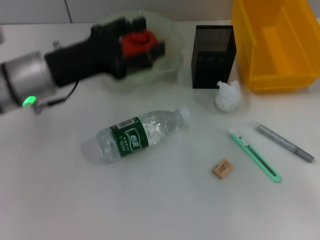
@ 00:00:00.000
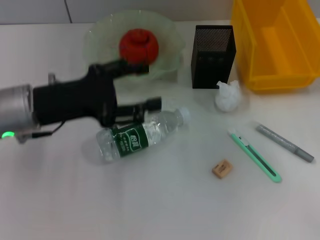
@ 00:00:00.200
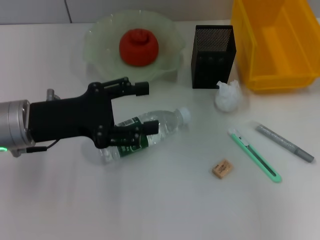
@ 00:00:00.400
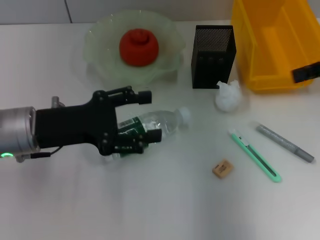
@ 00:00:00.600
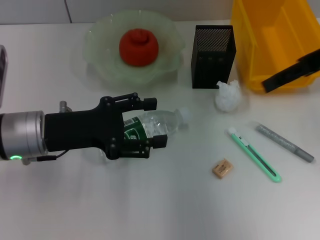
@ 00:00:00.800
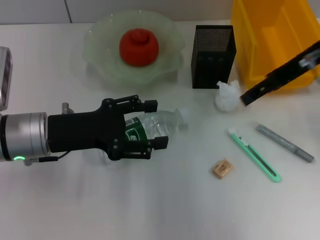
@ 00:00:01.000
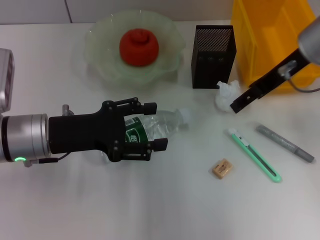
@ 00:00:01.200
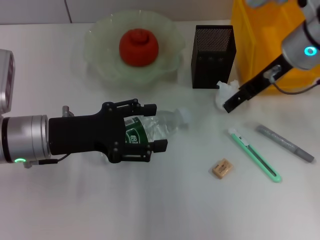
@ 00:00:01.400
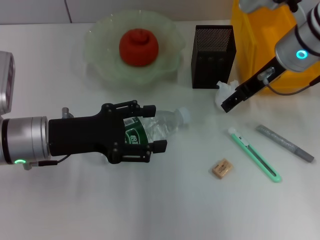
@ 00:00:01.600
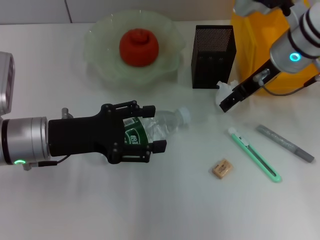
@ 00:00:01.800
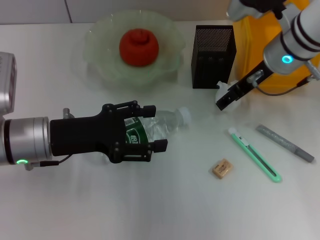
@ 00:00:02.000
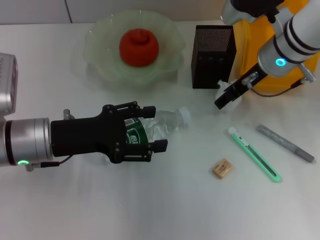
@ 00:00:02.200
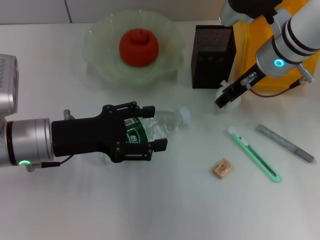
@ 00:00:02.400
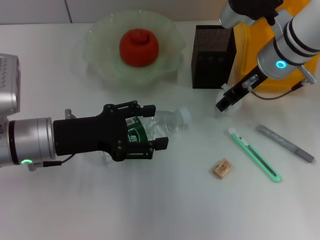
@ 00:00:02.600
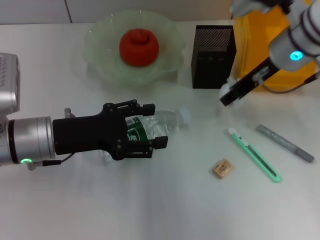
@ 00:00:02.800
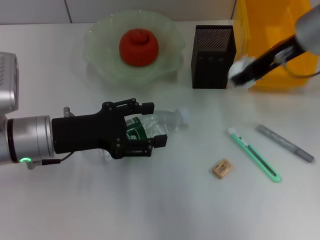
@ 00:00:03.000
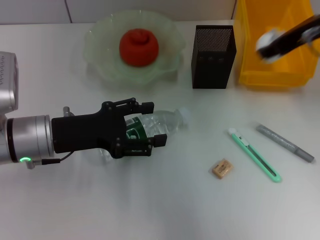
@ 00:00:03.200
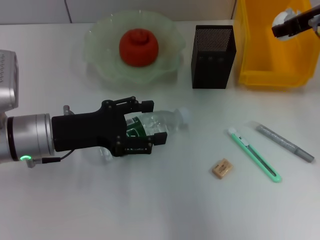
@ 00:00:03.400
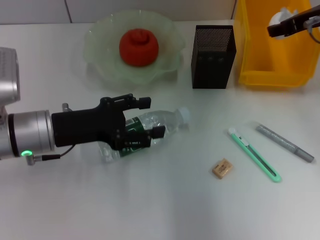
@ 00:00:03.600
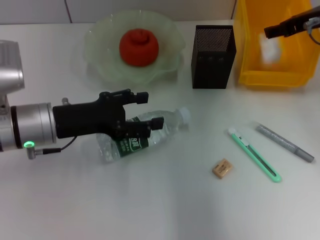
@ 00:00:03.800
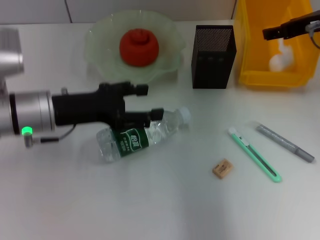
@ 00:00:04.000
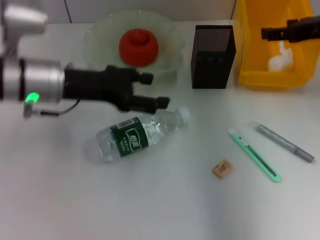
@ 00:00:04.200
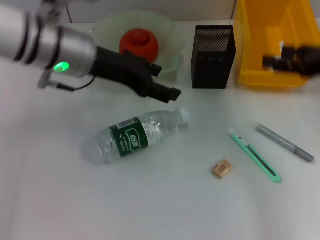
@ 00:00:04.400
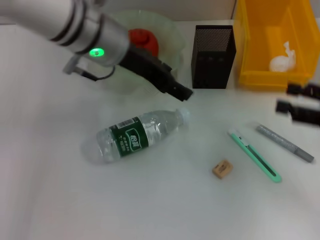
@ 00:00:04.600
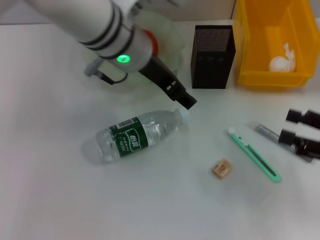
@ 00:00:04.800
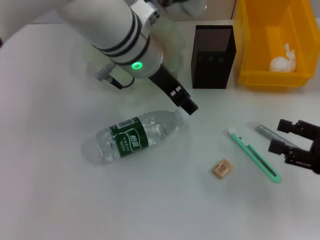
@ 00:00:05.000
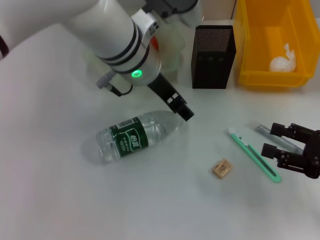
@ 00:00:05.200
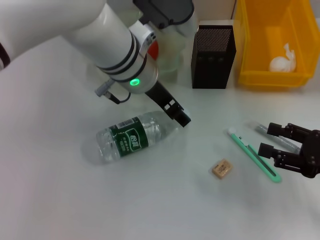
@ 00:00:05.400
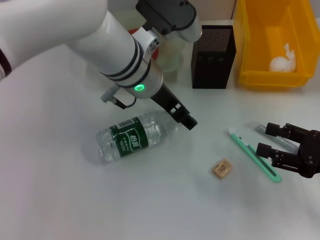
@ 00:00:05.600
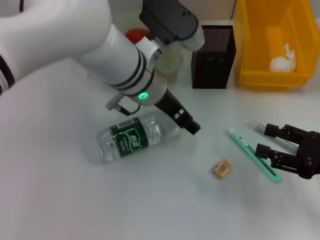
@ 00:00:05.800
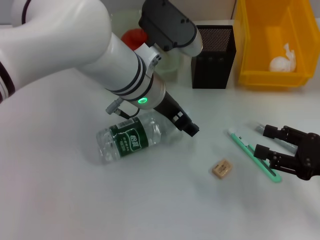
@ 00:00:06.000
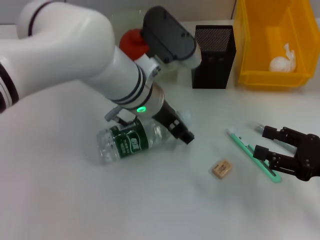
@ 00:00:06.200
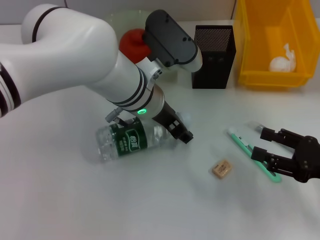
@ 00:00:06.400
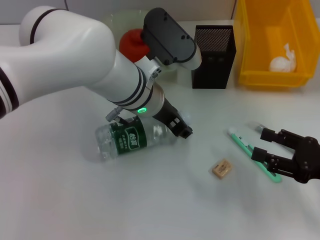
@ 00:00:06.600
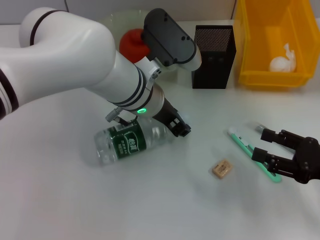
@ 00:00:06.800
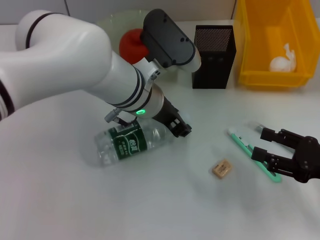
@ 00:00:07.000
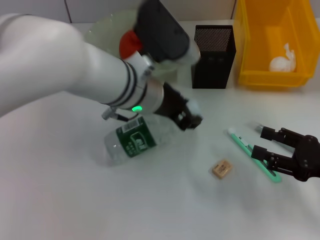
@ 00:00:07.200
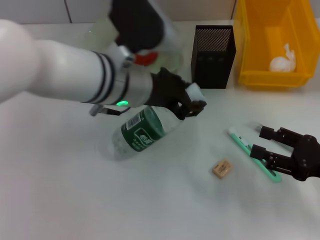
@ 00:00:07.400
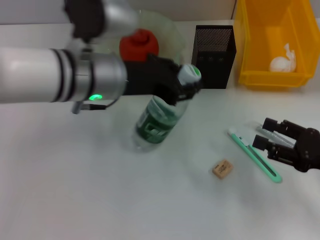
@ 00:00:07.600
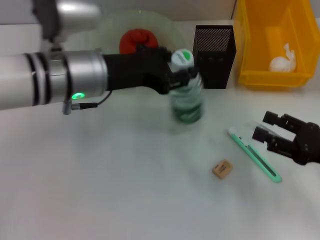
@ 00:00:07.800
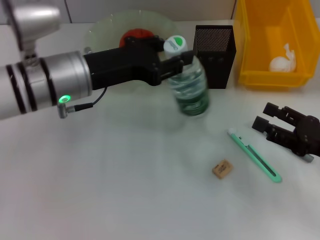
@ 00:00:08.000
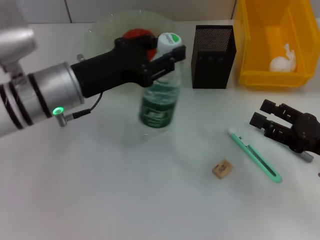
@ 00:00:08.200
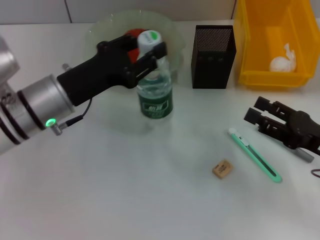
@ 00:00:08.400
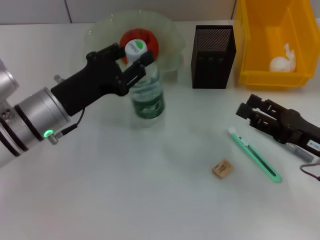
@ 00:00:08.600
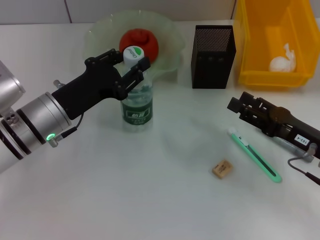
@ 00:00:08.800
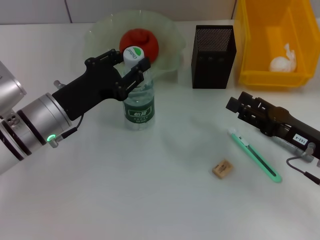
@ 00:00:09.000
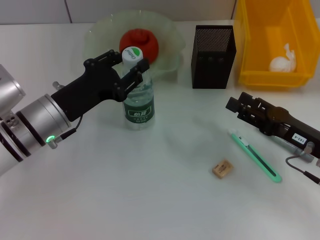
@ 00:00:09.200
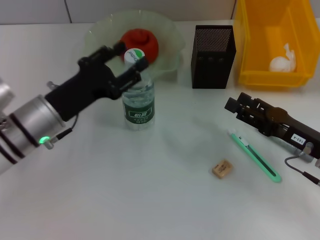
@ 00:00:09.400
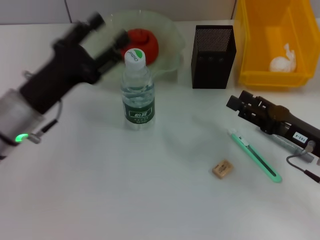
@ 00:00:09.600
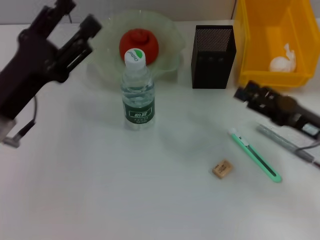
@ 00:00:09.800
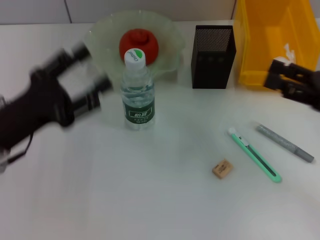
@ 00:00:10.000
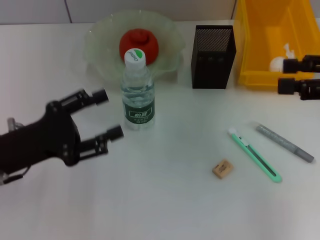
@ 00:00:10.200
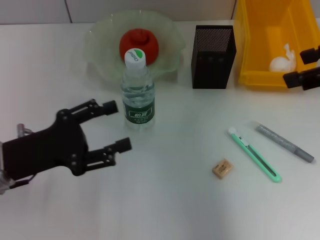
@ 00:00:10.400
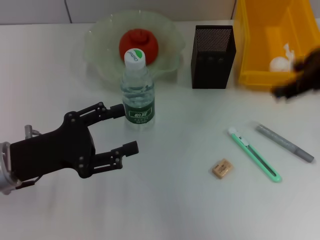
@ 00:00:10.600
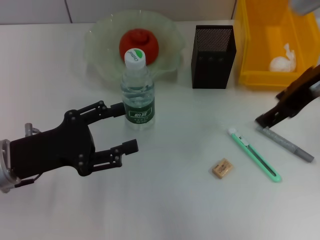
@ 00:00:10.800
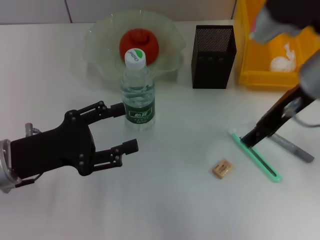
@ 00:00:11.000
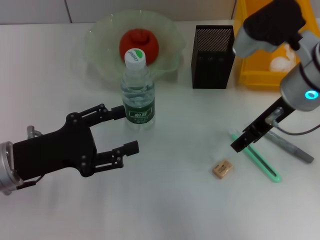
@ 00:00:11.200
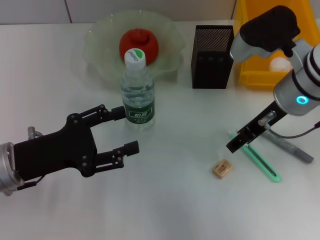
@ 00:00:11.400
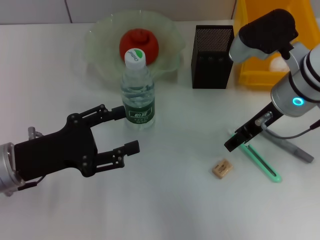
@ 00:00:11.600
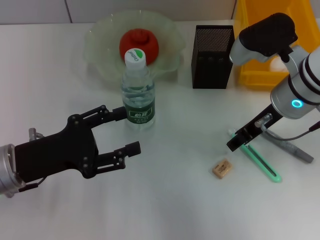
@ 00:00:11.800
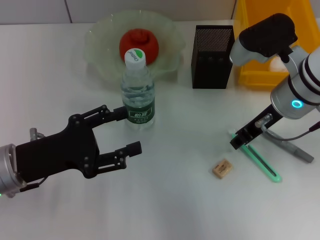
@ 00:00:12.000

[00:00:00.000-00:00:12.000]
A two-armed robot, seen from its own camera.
Step, 00:00:00.000 to 00:00:02.200: Grab the paper ball with the right hand.
Step, 00:00:02.400 to 00:00:04.200: Place the paper ball into the trash can with the right hand.
Step, 00:00:04.400 to 00:00:06.600: Grab the water bottle with the left hand.
Step, 00:00:06.800 to 00:00:09.200: Place the water bottle on the table with the left hand.
00:00:00.000 to 00:00:01.600: The right gripper heads to the left and forward, covering approximately 25 cm. Meanwhile the left gripper heads backward, covering approximately 5 cm.
00:00:01.600 to 00:00:03.000: The right gripper moves about 5 cm, and closes.
00:00:03.000 to 00:00:04.400: The right gripper heads to the right and backward, covering approximately 15 cm, and opens. The left gripper is displaced upward, forward and to the right by some 15 cm.
00:00:04.400 to 00:00:06.000: The left gripper moves to the right and downward, roughly 10 cm. Meanwhile the right gripper travels downward and backward by some 15 cm.
00:00:06.000 to 00:00:07.600: The left gripper moves to the left, some 5 cm, and closes its fingers.
00:00:07.600 to 00:00:09.000: The right gripper changes place by approximately 5 cm. The left gripper goes about 15 cm downward and to the left.
00:00:09.000 to 00:00:10.400: The left gripper shifts about 10 cm backward and to the left, and opens up, while the right gripper heads upward, covering about 25 cm.
00:00:10.400 to 00:00:12.000: The right gripper goes roughly 20 cm downward and to the left.

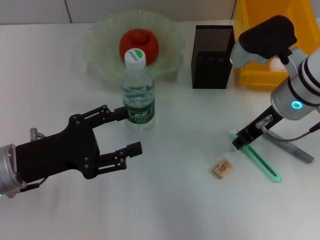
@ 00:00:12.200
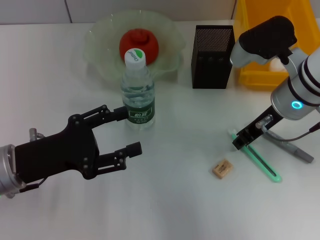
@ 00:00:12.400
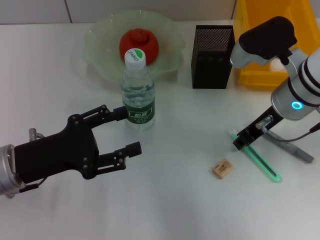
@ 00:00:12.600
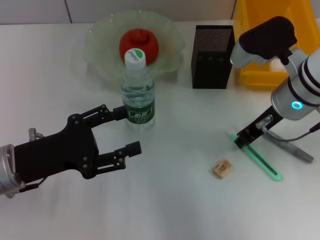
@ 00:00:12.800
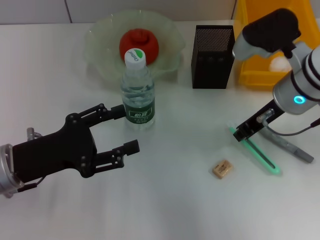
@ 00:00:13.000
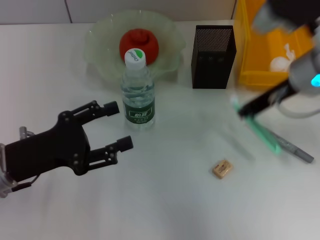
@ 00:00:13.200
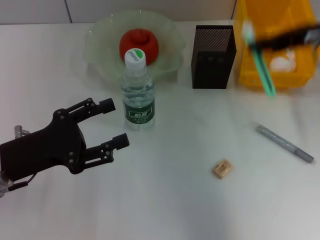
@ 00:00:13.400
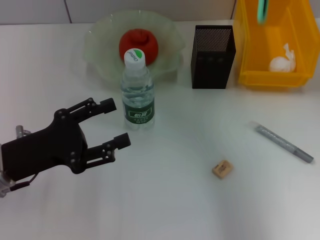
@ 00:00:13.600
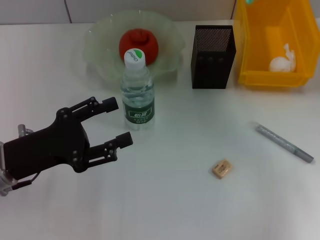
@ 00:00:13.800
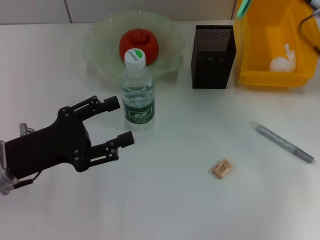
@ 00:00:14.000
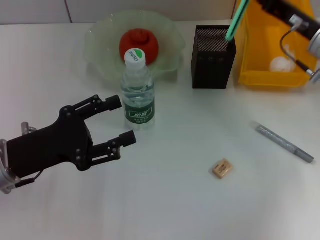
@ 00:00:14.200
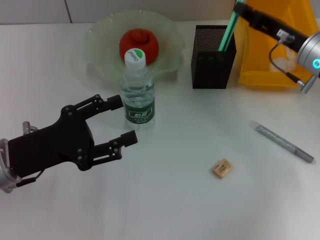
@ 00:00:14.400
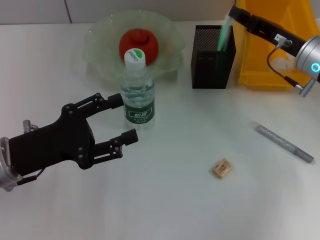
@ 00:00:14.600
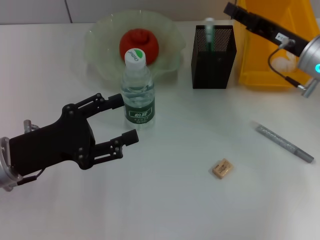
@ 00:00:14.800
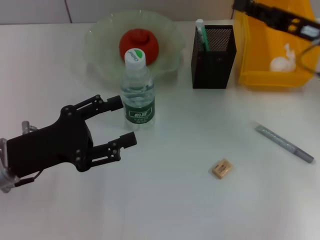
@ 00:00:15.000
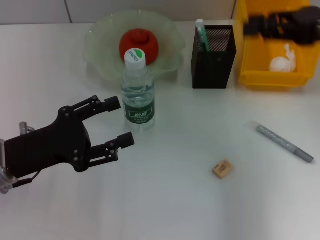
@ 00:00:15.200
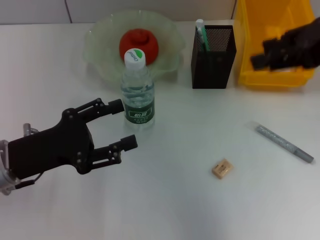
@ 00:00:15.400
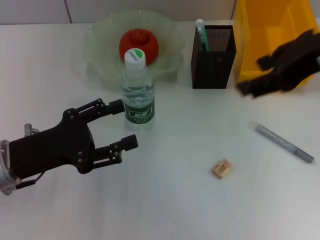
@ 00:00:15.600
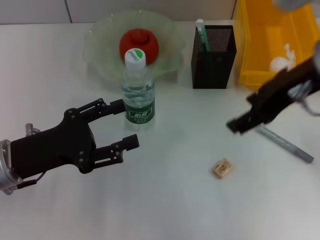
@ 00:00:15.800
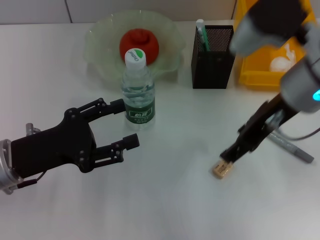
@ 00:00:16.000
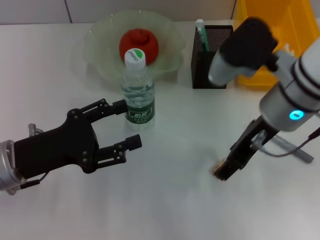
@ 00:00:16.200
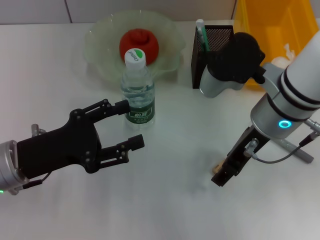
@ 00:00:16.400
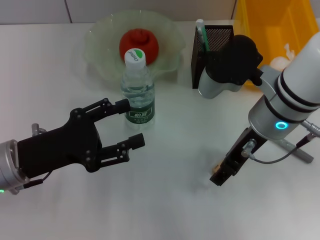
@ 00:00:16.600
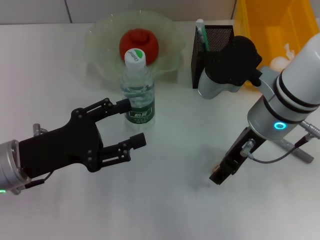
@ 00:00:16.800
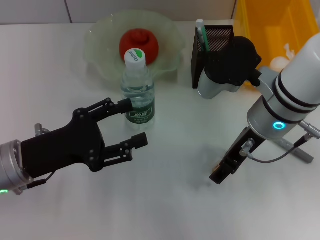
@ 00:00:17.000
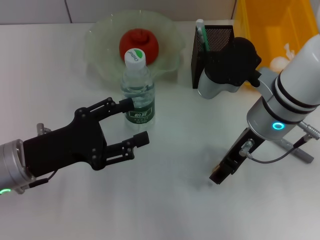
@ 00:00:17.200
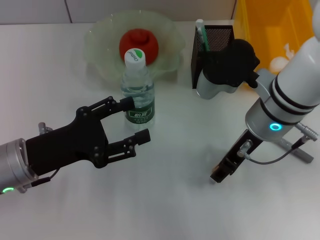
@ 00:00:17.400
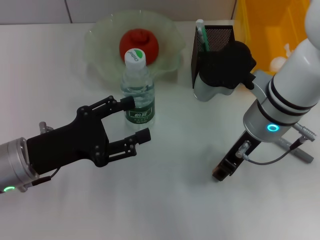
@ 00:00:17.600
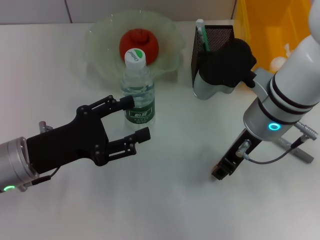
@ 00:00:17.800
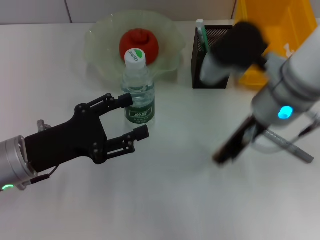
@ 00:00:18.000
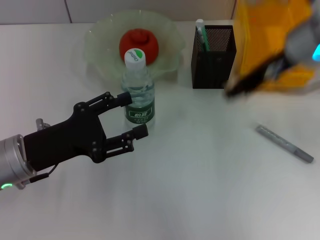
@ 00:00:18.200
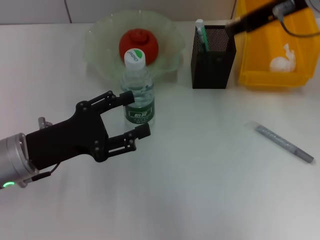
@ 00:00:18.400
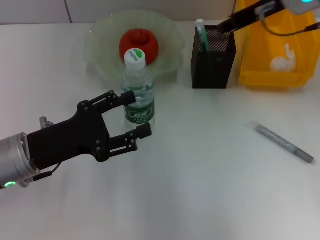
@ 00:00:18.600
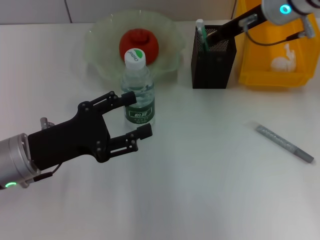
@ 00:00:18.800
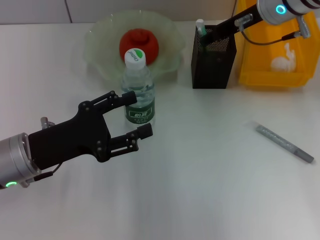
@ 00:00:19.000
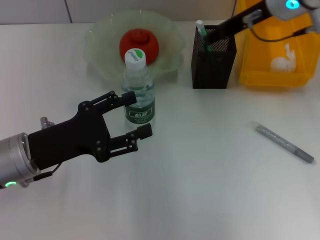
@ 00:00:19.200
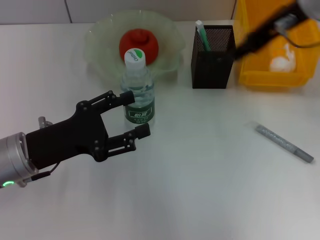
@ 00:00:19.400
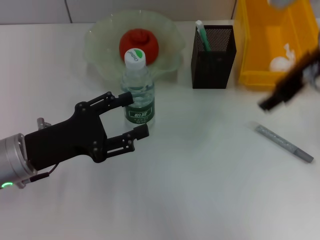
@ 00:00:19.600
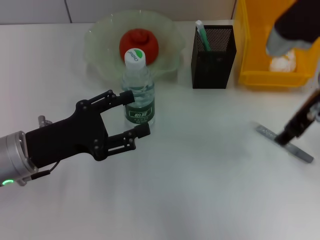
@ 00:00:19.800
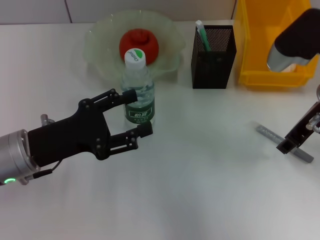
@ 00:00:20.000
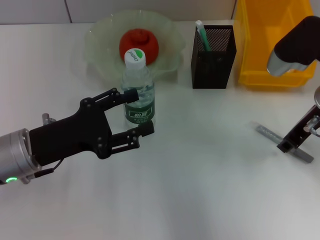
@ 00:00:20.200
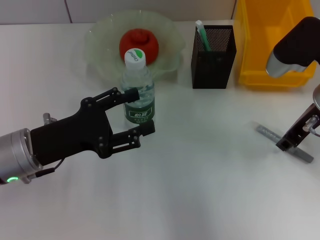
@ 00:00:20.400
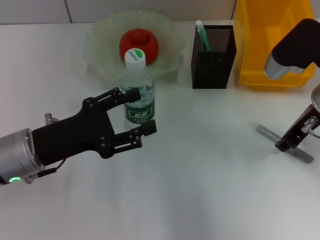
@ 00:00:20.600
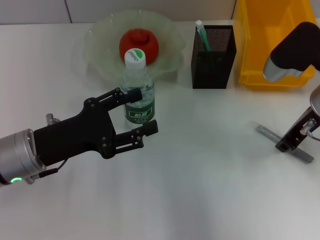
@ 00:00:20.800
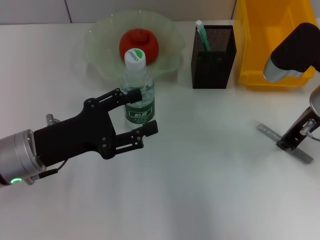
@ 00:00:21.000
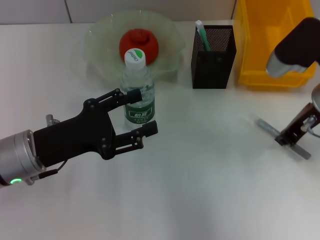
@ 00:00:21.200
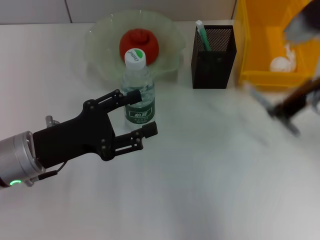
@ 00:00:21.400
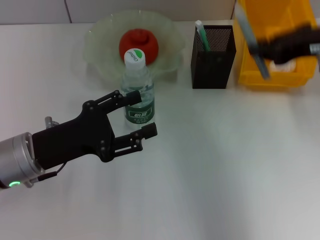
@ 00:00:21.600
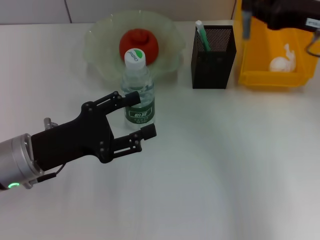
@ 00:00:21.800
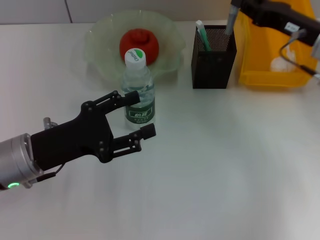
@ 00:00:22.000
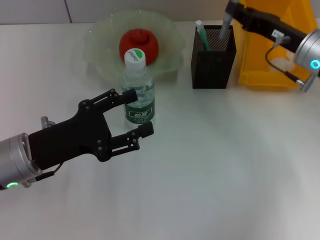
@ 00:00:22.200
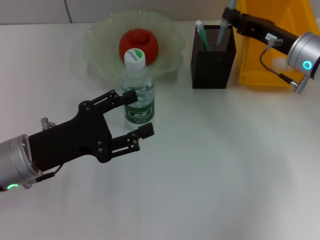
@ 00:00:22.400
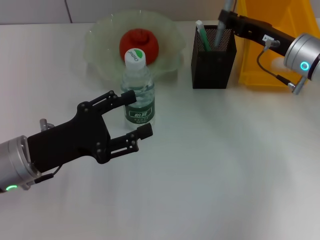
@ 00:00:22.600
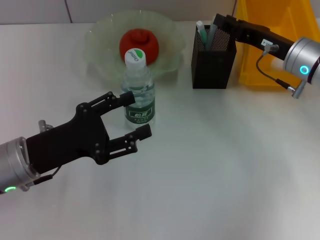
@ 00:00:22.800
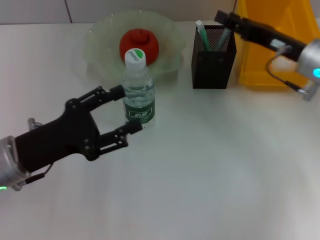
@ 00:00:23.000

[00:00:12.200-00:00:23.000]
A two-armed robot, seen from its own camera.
Step, 00:00:12.800 to 00:00:14.800: Place the blue utility knife into the pen holder with the right hand.
Step, 00:00:15.000 to 00:00:17.600: Grab the eraser with the right hand.
Step, 00:00:17.800 to 00:00:19.000: Put the eraser into the pen holder with the right hand.
Step, 00:00:19.200 to 00:00:20.800: Grab the gray glue with the right hand.
Step, 00:00:21.000 to 00:00:22.800: Place the gray glue into the pen holder with the right hand.
00:00:12.200 to 00:00:13.800: The right gripper heads to the right, covering some 10 cm.
00:00:13.800 to 00:00:15.200: The right gripper goes some 5 cm upward.
00:00:15.200 to 00:00:16.800: The right gripper moves to the left and downward, some 20 cm, and opens.
00:00:16.800 to 00:00:18.400: The right gripper travels upward, forward and to the right by some 15 cm, and closes up.
00:00:18.400 to 00:00:20.000: The right gripper moves up and down over some 10 cm, changing direction 2 times.
00:00:20.000 to 00:00:21.400: The right gripper closes up.
00:00:21.400 to 00:00:23.000: The right gripper is displaced downward by some 10 cm.
